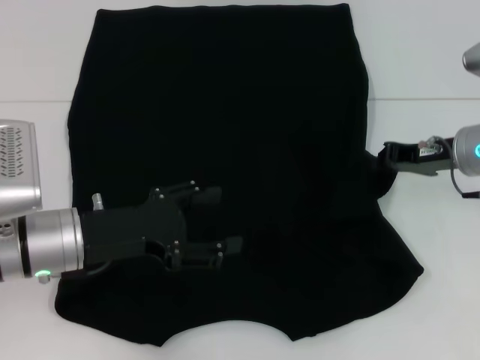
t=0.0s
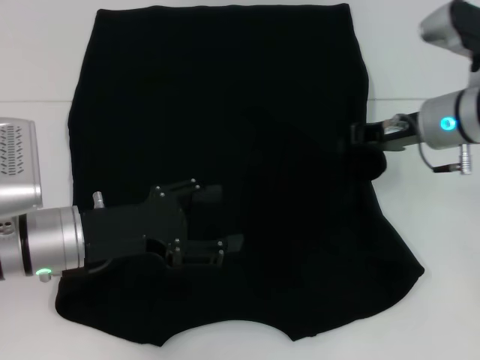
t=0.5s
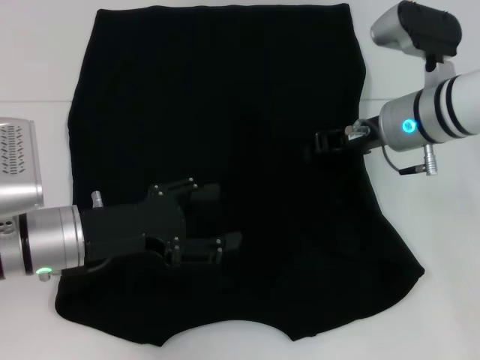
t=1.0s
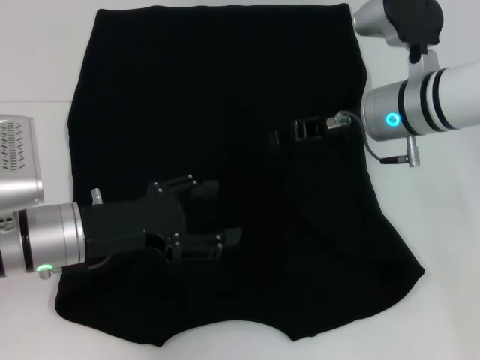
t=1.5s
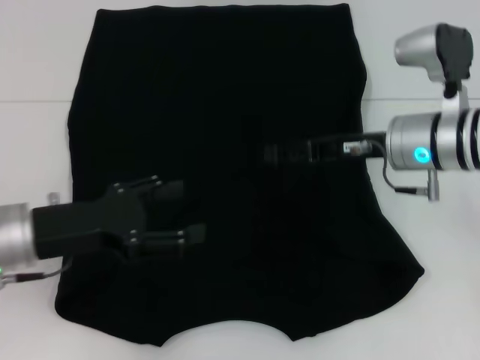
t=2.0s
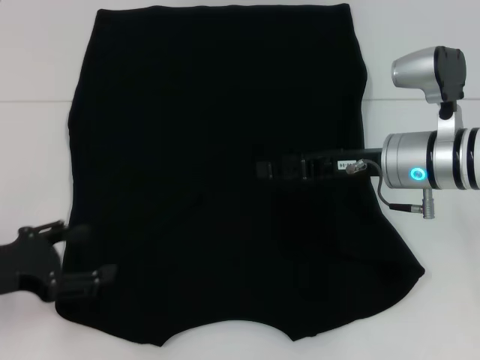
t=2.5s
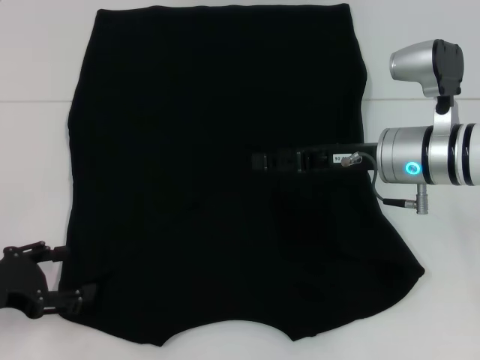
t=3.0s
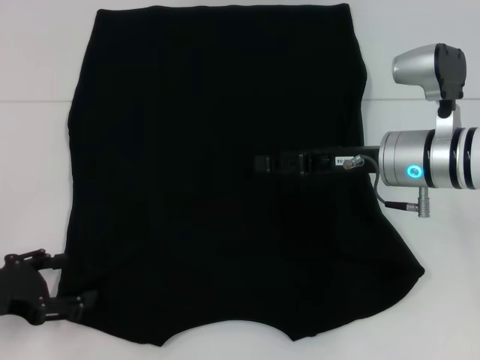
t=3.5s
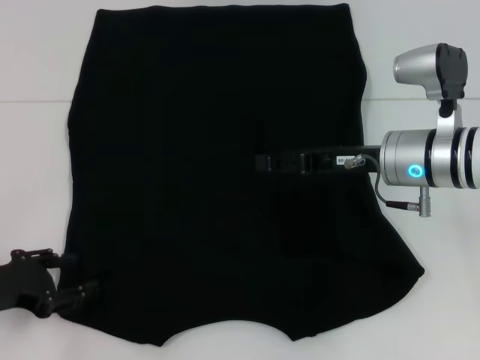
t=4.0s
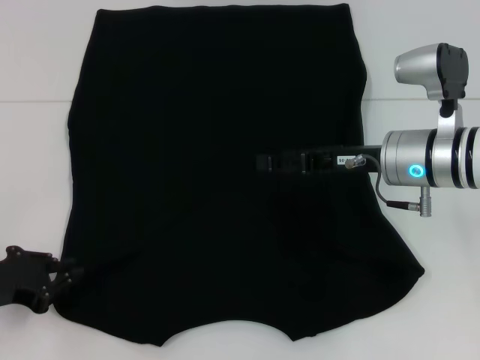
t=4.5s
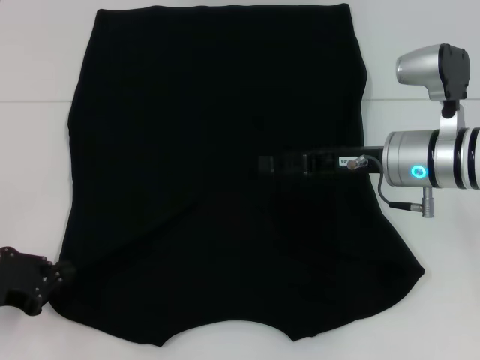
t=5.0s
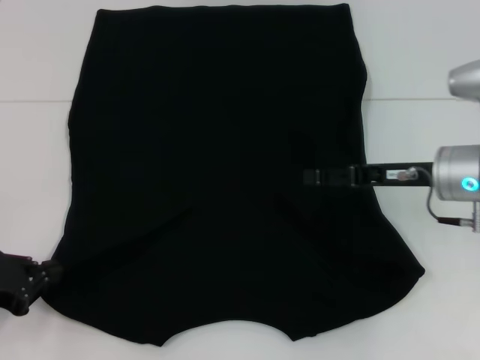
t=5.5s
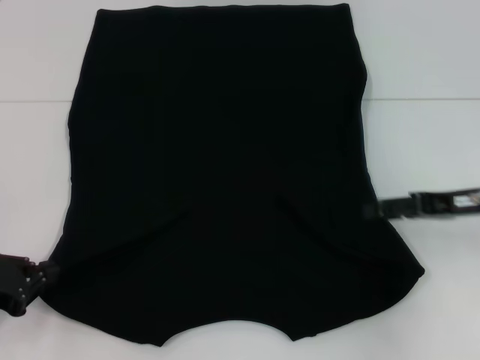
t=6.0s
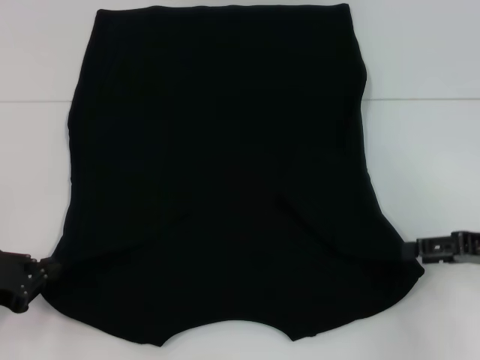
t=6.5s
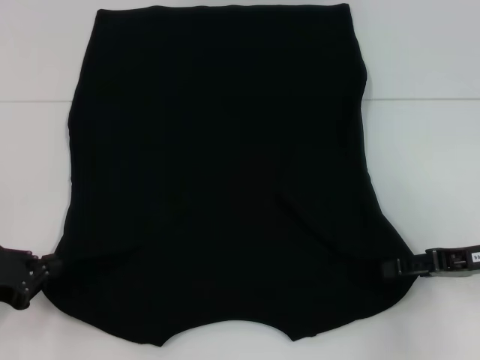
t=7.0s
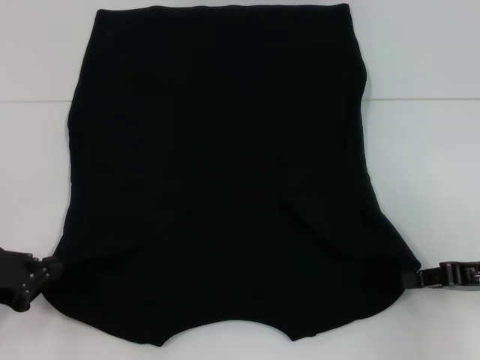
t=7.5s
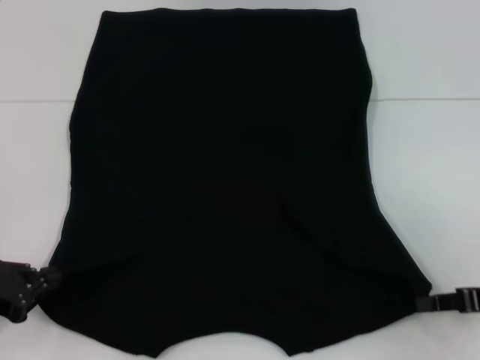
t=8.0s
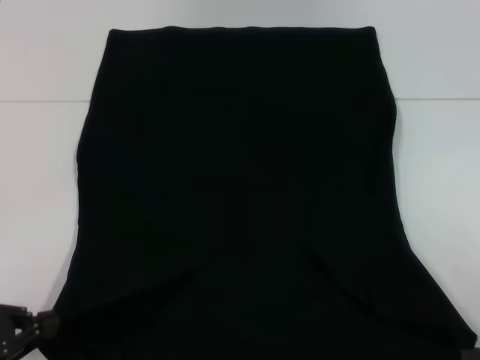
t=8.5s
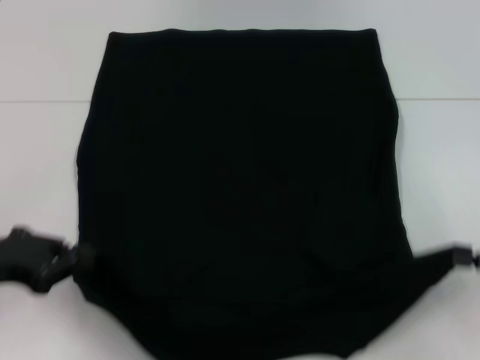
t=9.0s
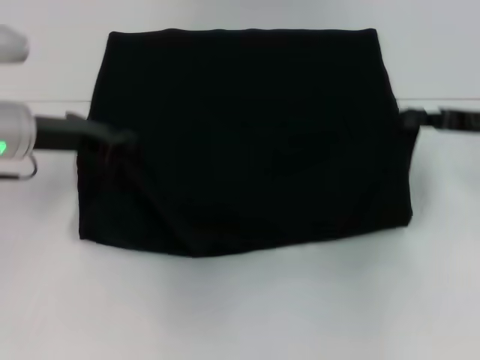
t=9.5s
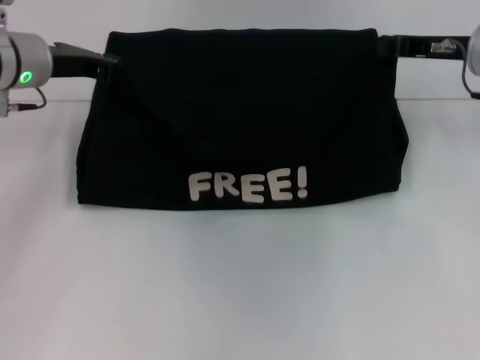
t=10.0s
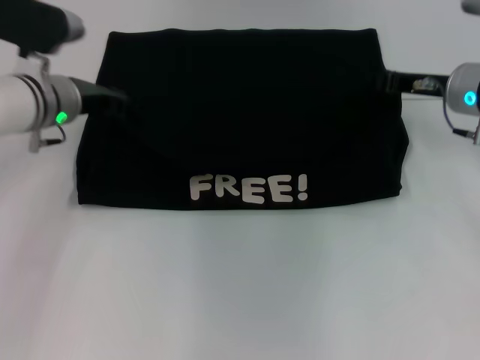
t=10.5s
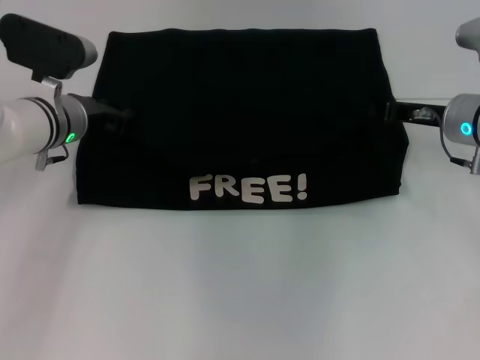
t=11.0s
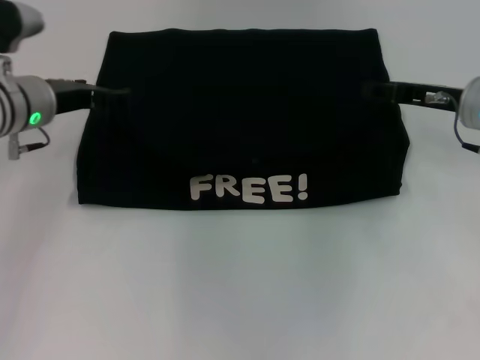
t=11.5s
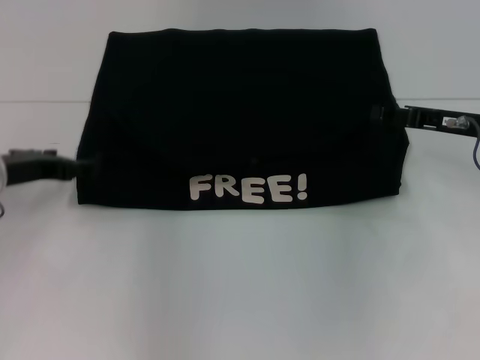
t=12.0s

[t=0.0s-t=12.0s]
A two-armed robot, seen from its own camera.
Step, t=2.0s to t=5.0s: Grab the bottom left corner with your left hand.
Step, t=5.5s to t=7.5s: Grab the bottom right corner with your right hand.
Step, t=8.0s to t=10.5s: Fold the clothes with your left hand.
Step, t=8.0s to t=10.5s: Fold the clothes with your right hand.
t=0.0s to t=2.0s: The right gripper moves to the left, some 5 cm, and opens its fingers.
t=2.0s to t=4.0s: The left gripper heads to the left, covering about 5 cm.
t=4.0s to t=6.0s: The right gripper heads to the right, covering some 10 cm. The left gripper closes up.
t=6.0s to t=8.0s: The right gripper goes some 10 cm backward, and closes up.
t=8.0s to t=10.0s: The left gripper moves forward, upward and to the right, some 25 cm, while the right gripper is displaced forward, upward and to the left by some 25 cm.
t=10.0s to t=12.0s: The right gripper heads downward and backward, covering approximately 10 cm, and opens its fingers. Meanwhile the left gripper goes approximately 10 cm backward and downward, and opens.

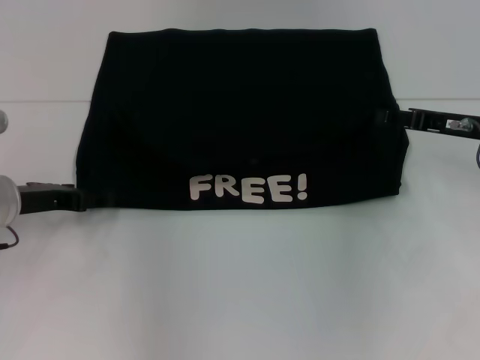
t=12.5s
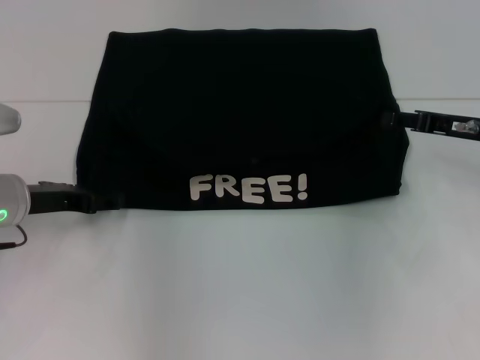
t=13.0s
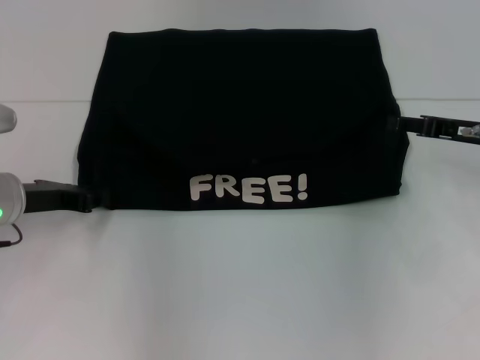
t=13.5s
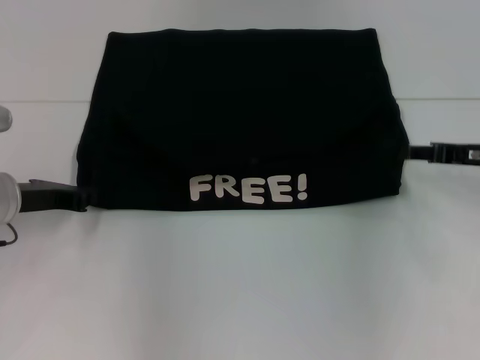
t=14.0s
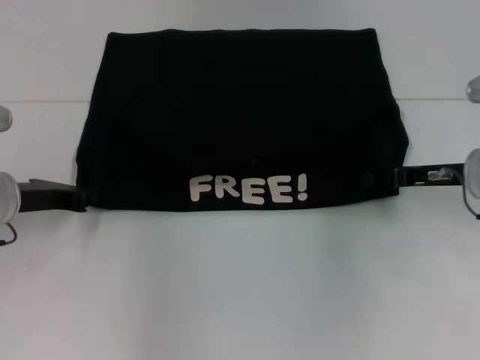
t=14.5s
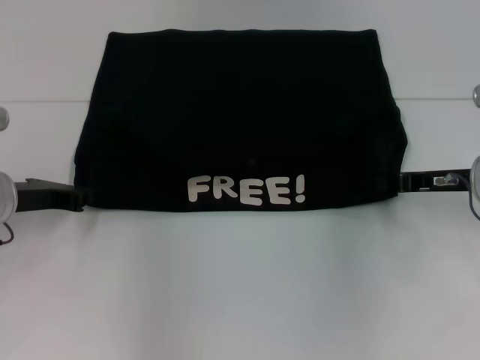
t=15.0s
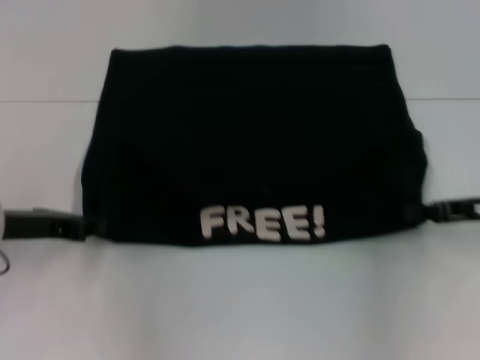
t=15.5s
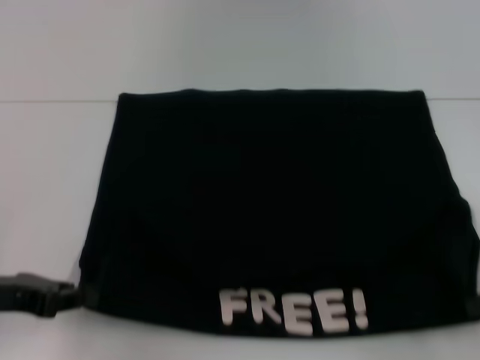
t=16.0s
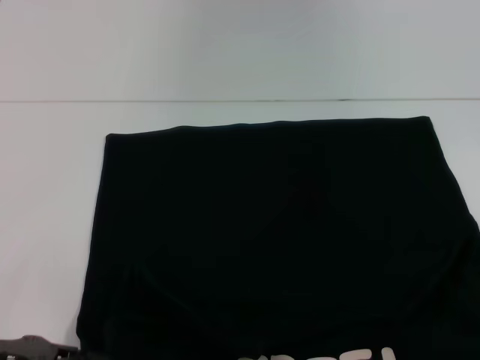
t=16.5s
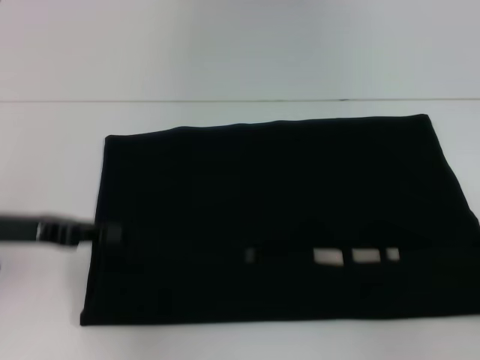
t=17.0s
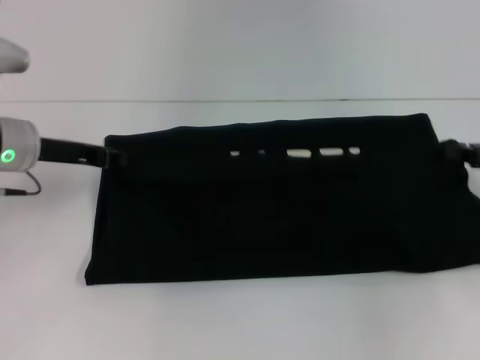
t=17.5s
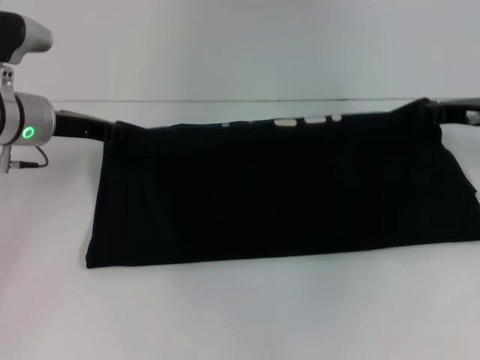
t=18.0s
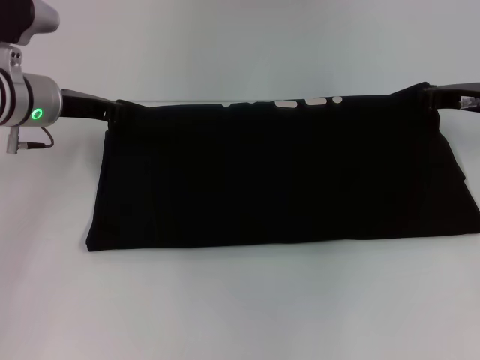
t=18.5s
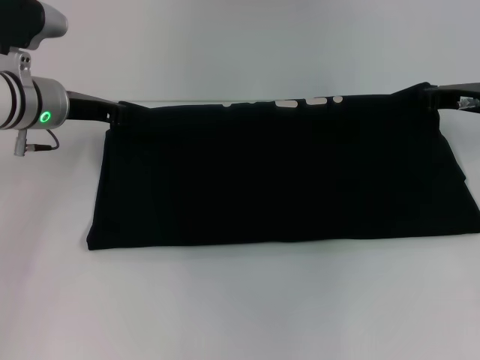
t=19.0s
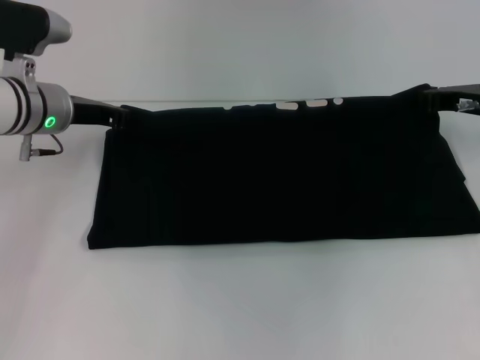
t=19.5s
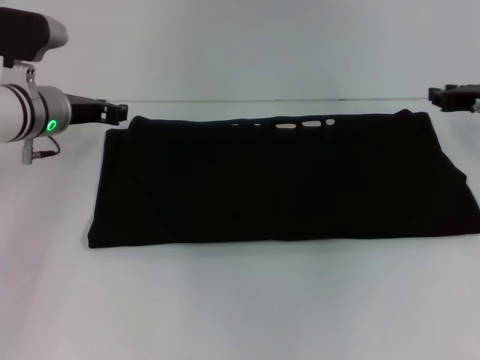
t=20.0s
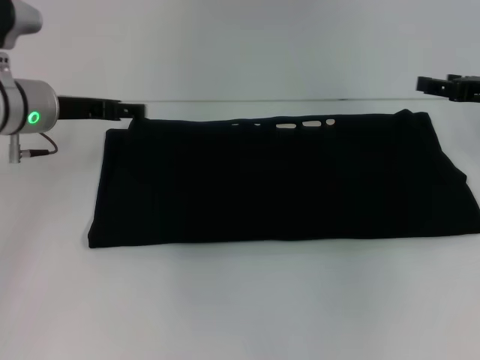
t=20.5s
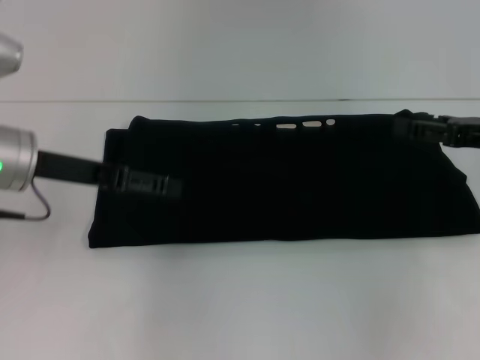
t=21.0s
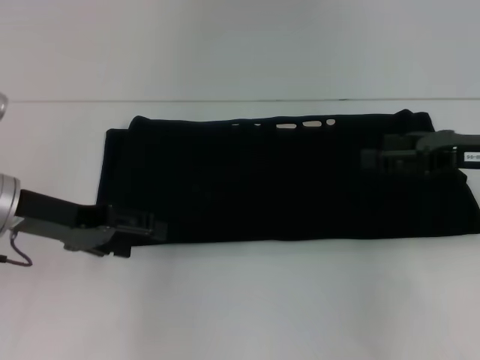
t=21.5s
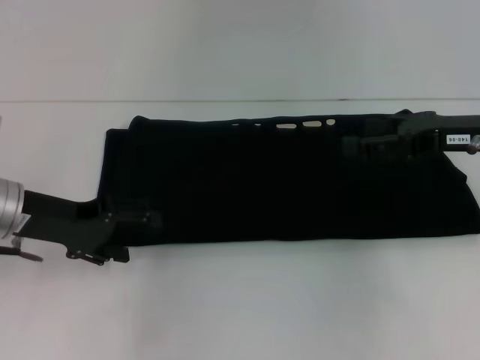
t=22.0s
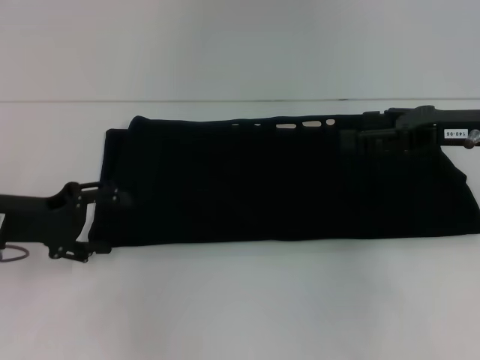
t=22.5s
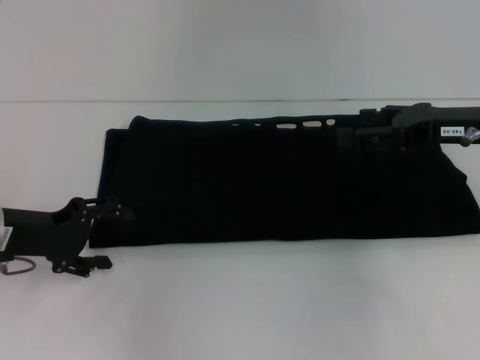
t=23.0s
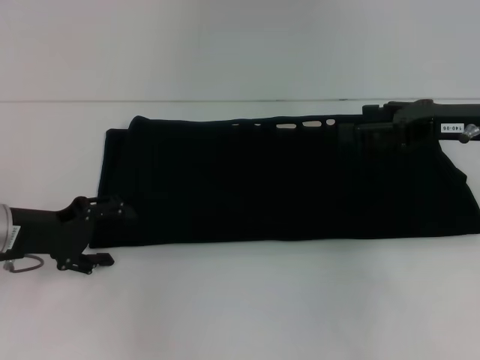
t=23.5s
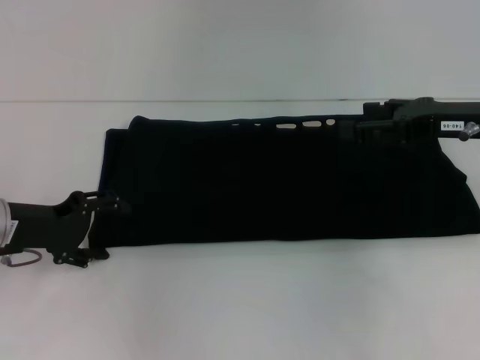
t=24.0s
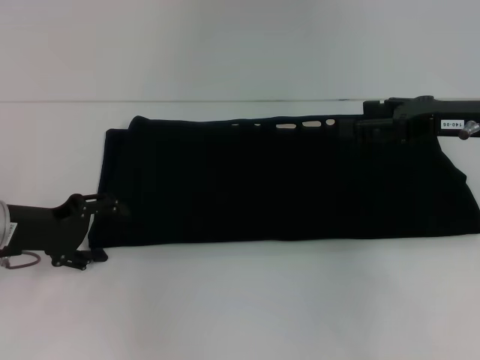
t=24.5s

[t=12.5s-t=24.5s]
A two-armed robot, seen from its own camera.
Step, t=12.5s to t=16.0s: Pull the clothes with your left hand.
Step, t=12.5s to t=16.0s: Pull the clothes with your right hand.
Step, t=16.5s to t=19.5s: Fold the clothes with your right hand.
t=12.5s to t=14.5s: The left gripper closes.
t=14.5s to t=16.5s: The right gripper travels backward and to the right by some 25 cm, and closes up, while the left gripper heads backward, covering some 15 cm.
t=16.5s to t=18.5s: The right gripper shifts roughly 25 cm forward and to the left. The left gripper moves forward, roughly 25 cm.
t=18.5s to t=20.5s: The left gripper opens. Meanwhile the right gripper opens.
t=20.5s to t=22.5s: The right gripper goes approximately 5 cm to the left; the left gripper goes some 10 cm backward and to the left.
t=22.5s to t=24.5s: The grippers make only small movements.

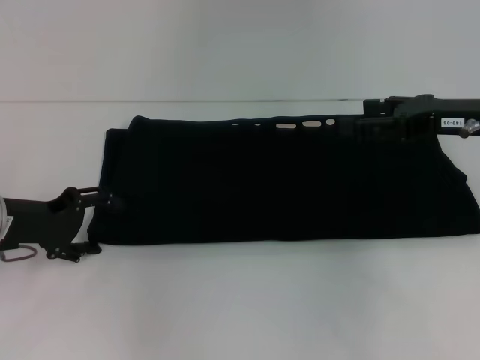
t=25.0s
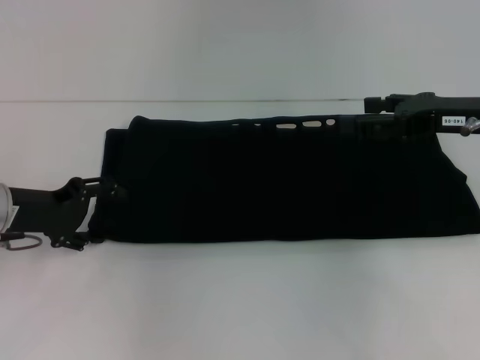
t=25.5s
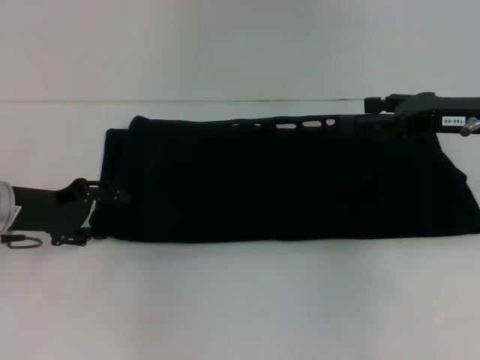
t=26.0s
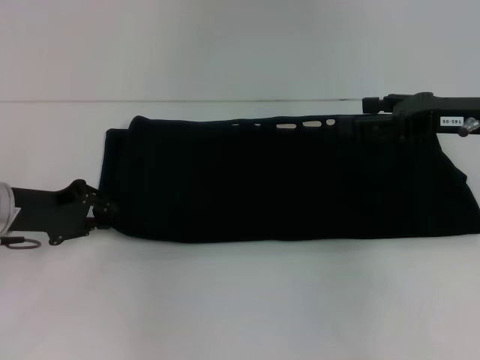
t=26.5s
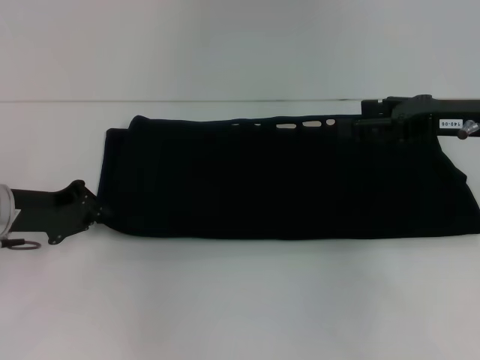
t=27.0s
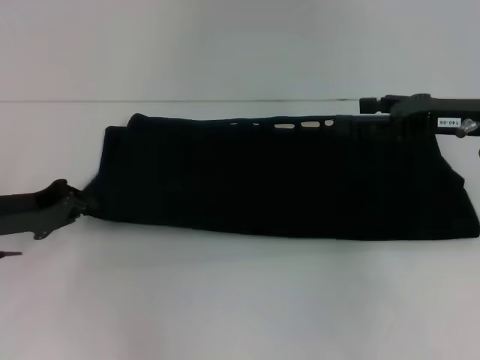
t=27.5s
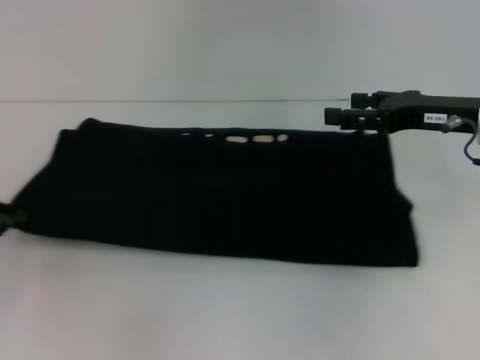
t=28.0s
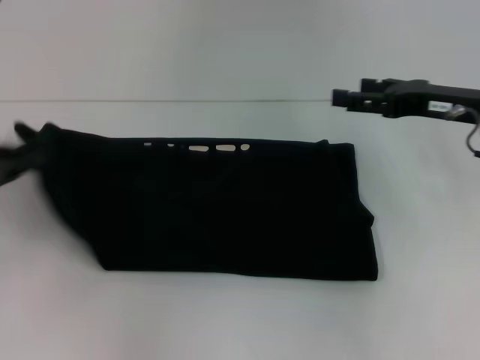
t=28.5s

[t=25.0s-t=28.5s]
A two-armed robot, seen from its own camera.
t=25.0s to t=27.0s: The left gripper closes its fingers.
t=27.0s to t=28.5s: The left gripper is displaced to the left and upward by approximately 10 cm.
